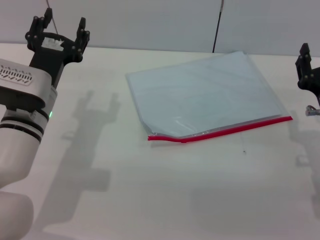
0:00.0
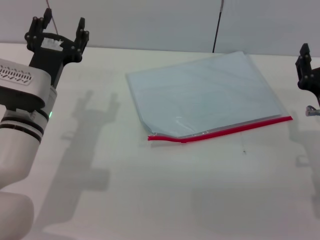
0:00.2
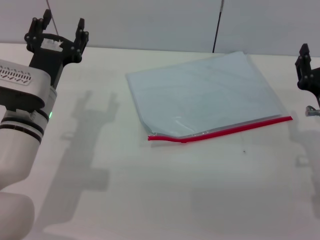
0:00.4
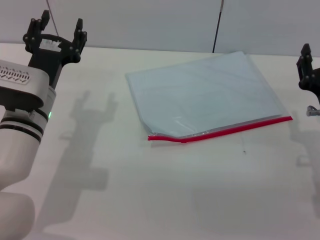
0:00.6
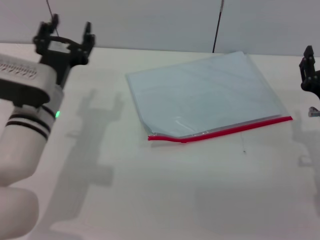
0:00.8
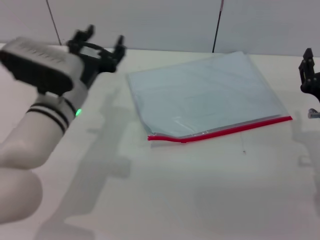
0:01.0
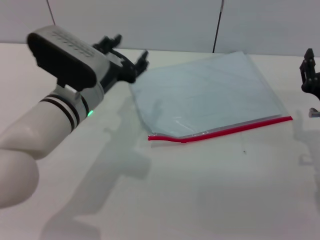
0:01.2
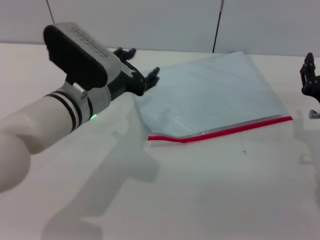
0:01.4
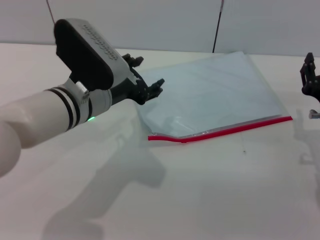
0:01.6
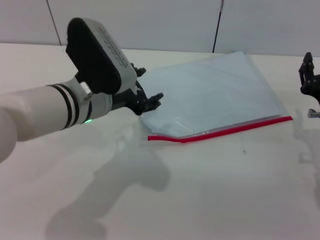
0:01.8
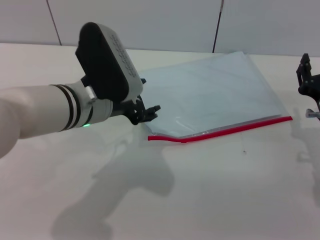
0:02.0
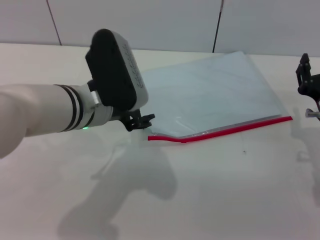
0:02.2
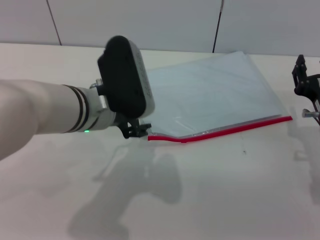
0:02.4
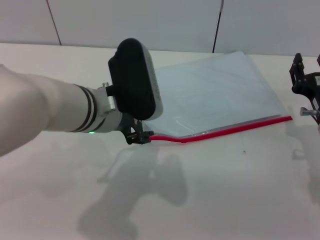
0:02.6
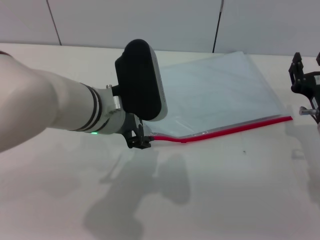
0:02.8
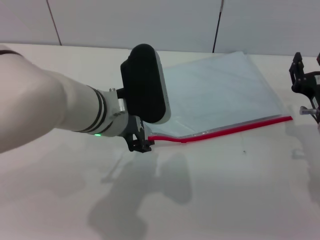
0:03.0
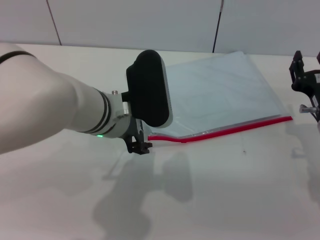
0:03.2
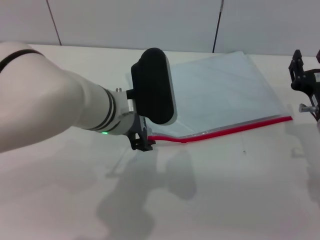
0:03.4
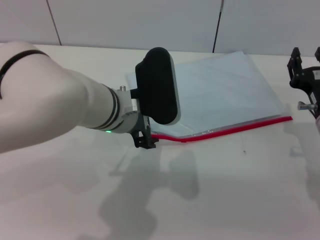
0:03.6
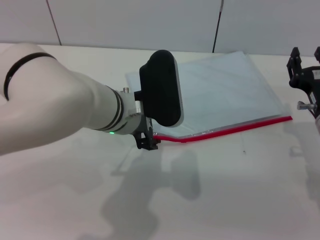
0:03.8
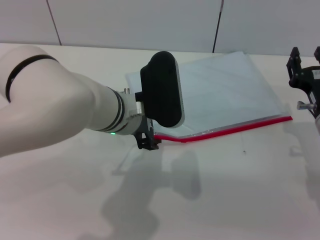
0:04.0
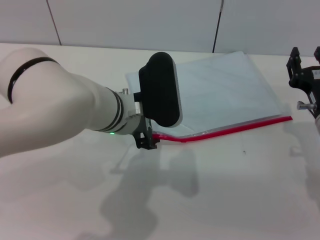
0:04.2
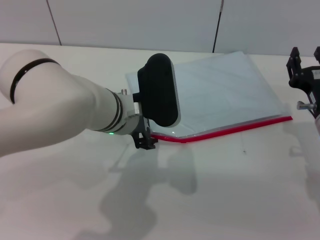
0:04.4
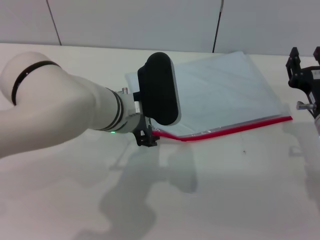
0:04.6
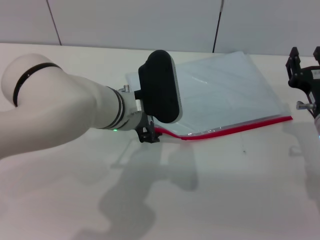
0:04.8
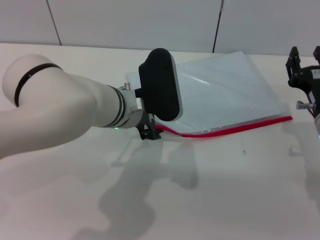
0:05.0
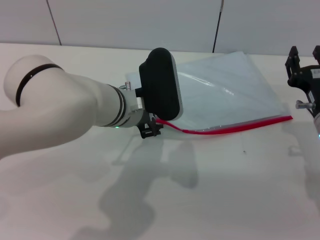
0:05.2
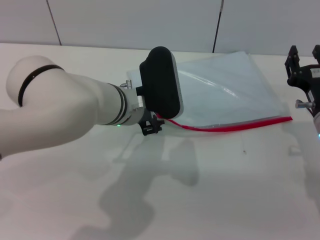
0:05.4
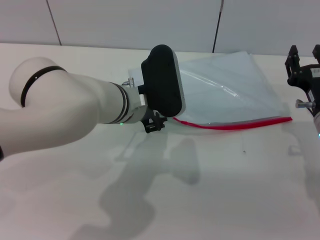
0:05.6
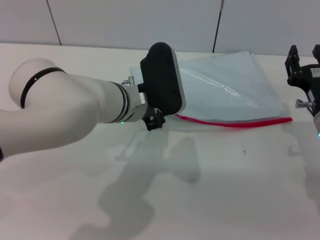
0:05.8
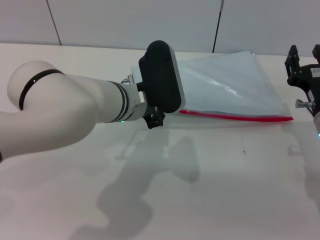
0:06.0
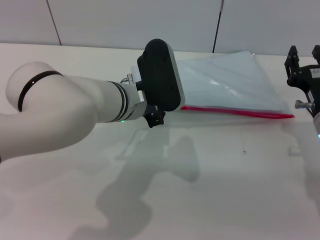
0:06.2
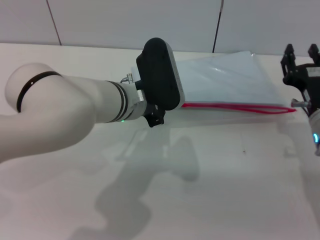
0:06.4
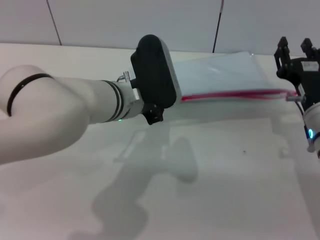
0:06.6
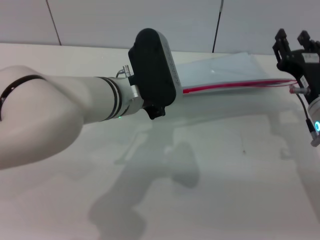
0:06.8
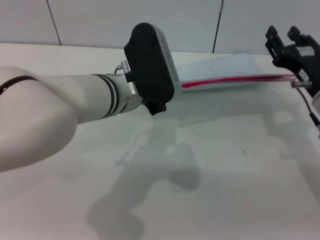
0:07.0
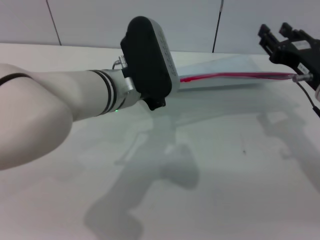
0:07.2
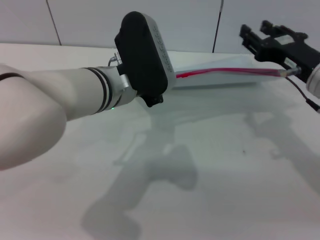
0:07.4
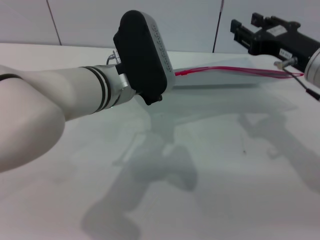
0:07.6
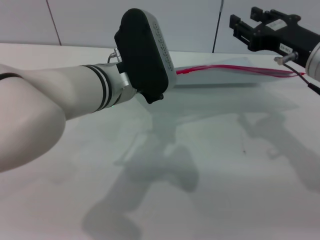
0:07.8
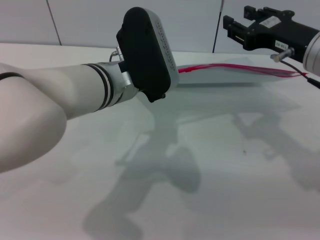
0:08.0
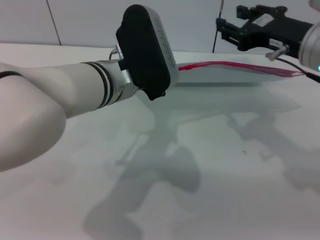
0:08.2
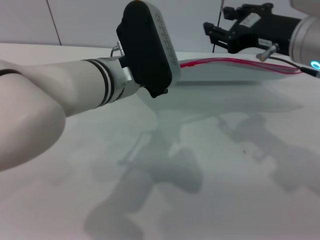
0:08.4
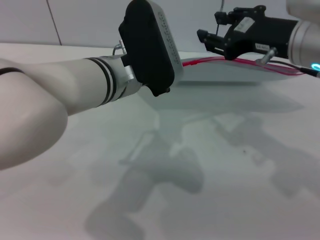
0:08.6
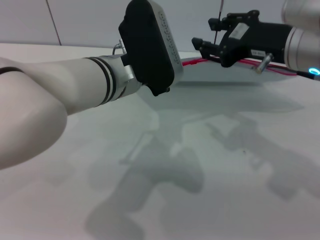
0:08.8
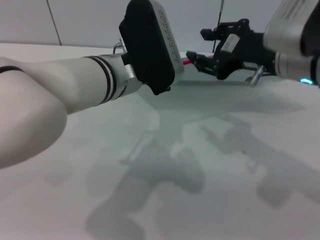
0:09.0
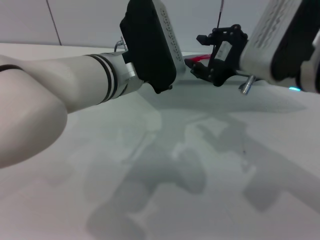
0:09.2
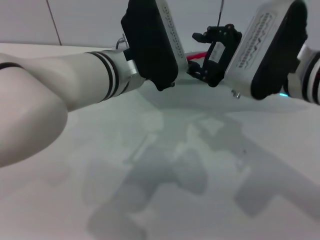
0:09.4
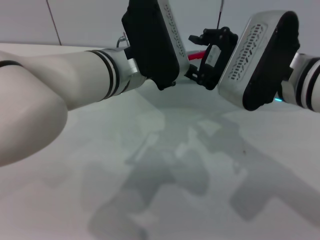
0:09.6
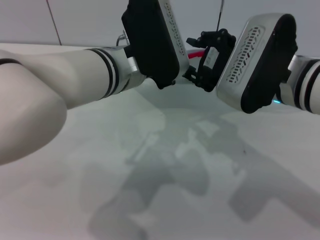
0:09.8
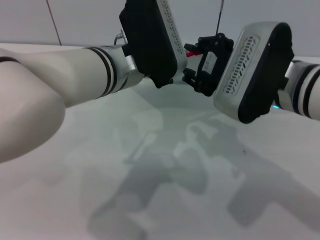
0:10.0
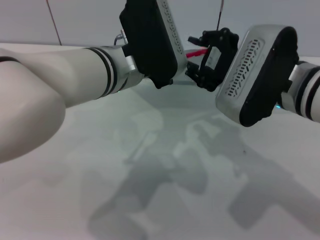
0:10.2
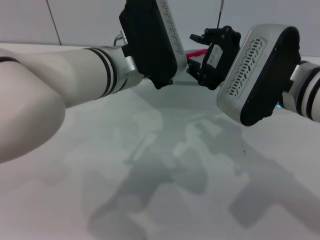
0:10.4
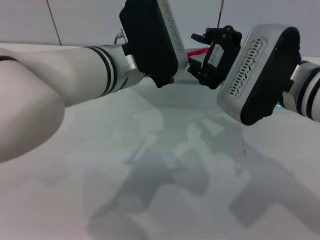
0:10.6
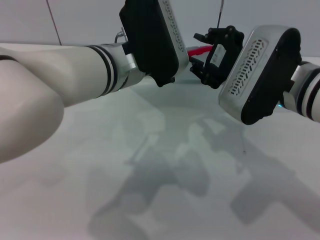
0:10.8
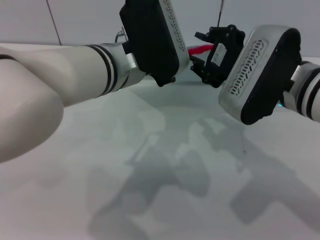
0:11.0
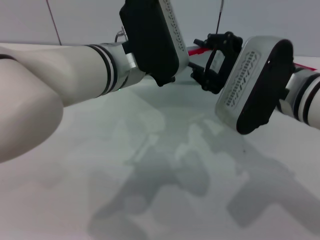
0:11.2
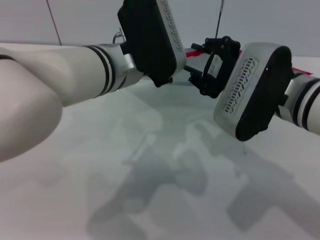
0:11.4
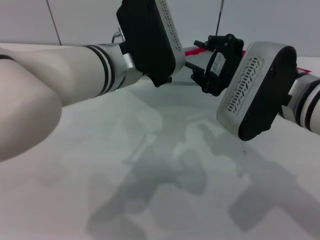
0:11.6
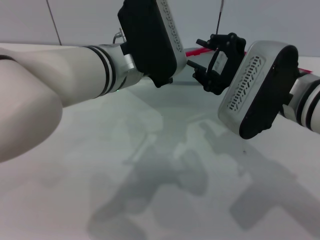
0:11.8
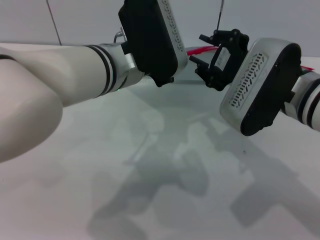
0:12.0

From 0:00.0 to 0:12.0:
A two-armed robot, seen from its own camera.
Step, from 0:00.0 to 0:08.8: Pick up the transparent plastic bag with the left gripper.
From 0:00.0 to 0:01.6: The left gripper heads to the right, covering some 5 cm.
From 0:03.0 to 0:04.4: There are only small adjustments of the grippers.
From 0:04.4 to 0:06.0: The left gripper closes up.
From 0:06.0 to 0:07.6: The left gripper shifts by about 5 cm, and closes, while the right gripper shifts about 10 cm upward.
From 0:07.6 to 0:09.0: The right gripper changes place by some 5 cm.
From 0:10.4 to 0:12.0: The grippers make only small movements.

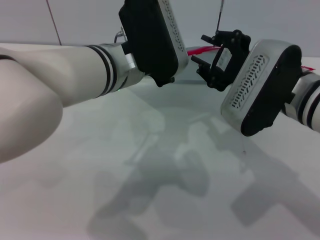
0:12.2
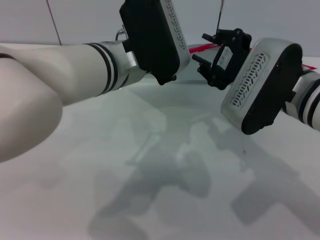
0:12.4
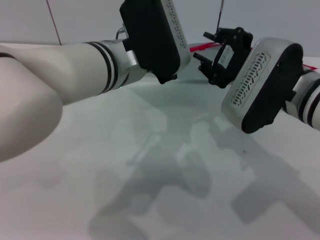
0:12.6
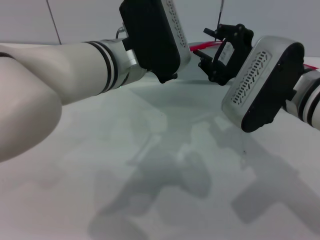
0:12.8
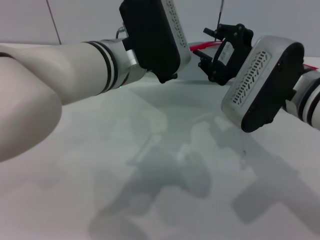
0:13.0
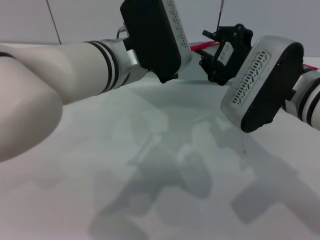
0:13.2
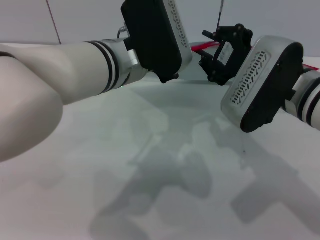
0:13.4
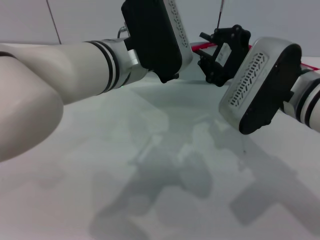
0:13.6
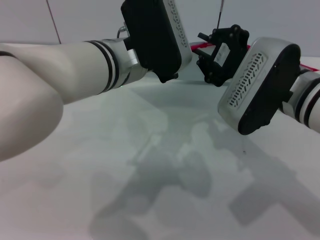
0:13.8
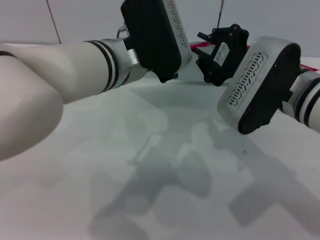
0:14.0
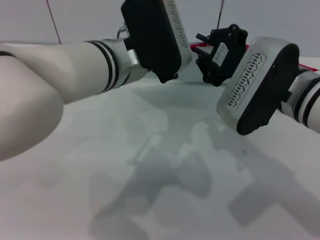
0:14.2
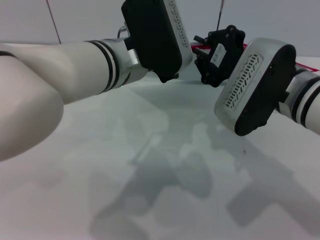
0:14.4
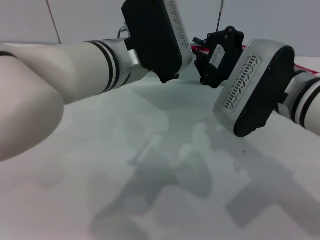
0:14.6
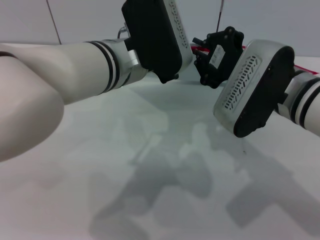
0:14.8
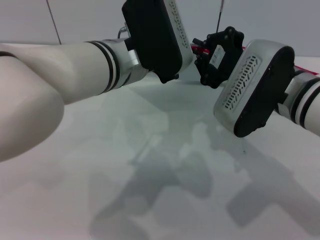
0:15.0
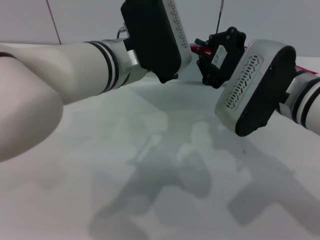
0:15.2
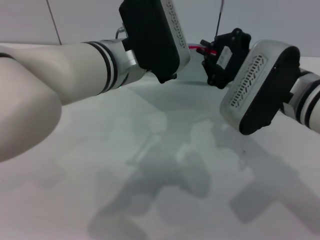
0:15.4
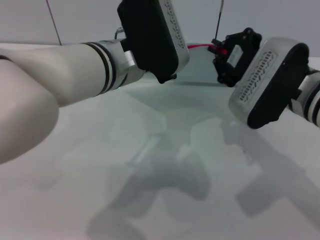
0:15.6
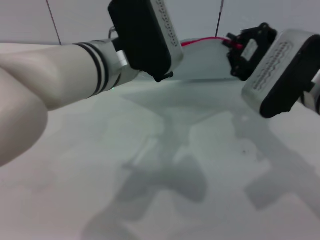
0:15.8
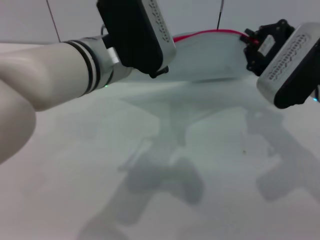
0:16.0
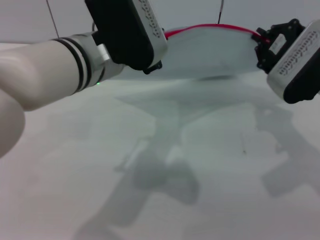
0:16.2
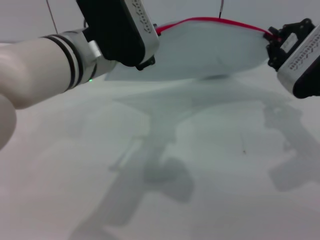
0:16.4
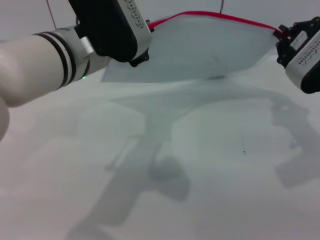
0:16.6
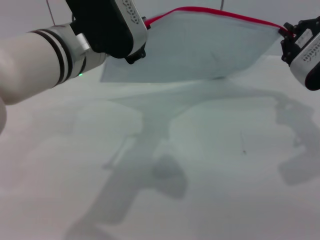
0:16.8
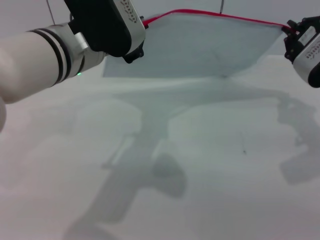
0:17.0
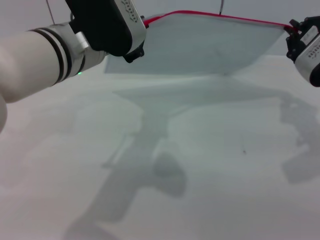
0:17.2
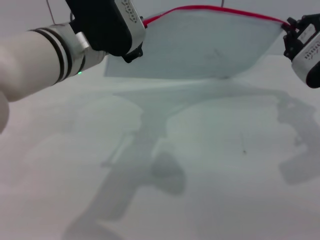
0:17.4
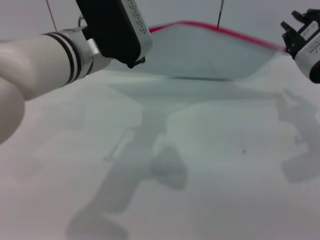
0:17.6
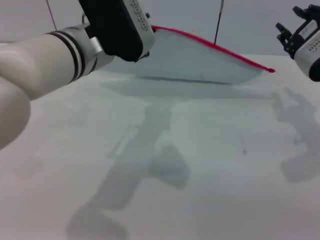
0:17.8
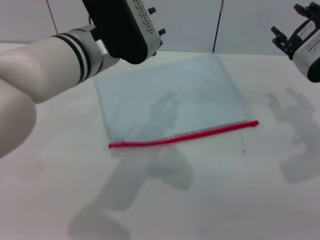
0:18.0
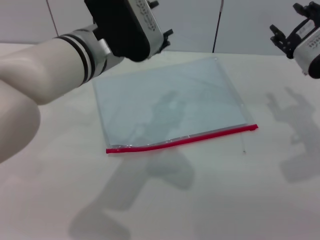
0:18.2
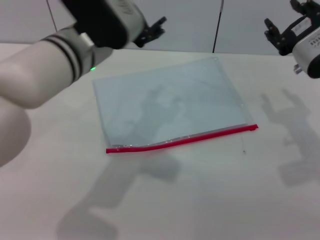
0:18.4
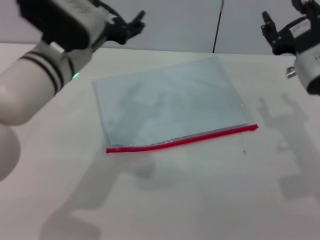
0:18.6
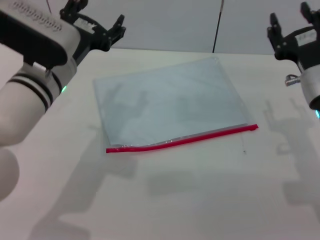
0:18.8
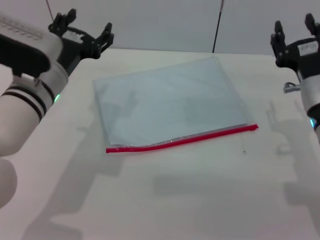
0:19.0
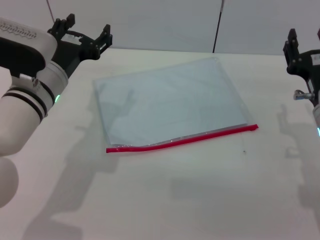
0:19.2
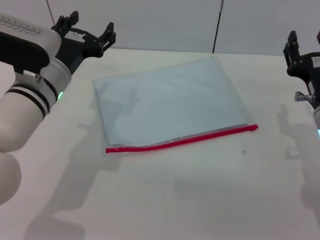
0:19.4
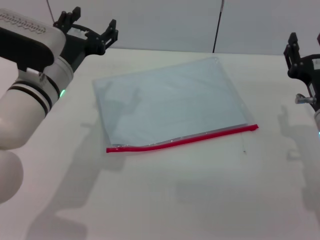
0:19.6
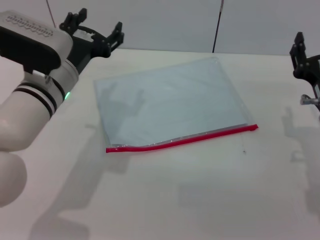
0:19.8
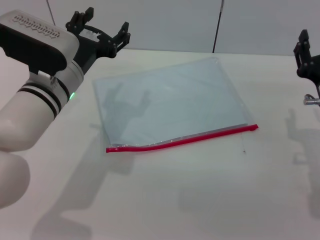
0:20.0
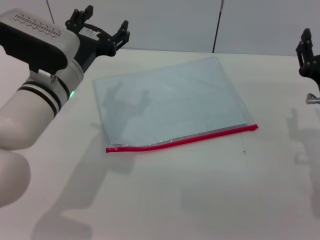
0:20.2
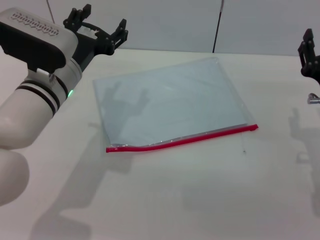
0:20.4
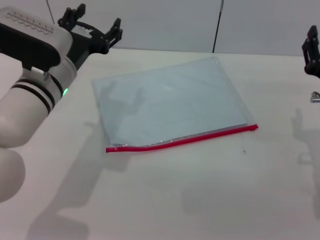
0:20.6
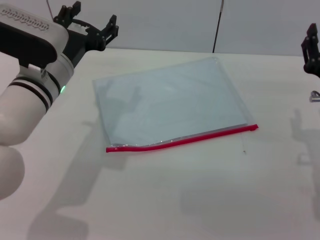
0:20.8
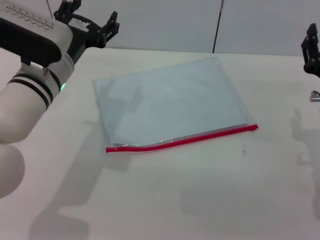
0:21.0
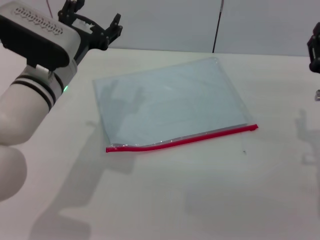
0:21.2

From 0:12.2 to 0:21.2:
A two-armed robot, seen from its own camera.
Step, from 0:12.2 to 0:17.4: Pulling up the zipper on the transparent plastic bag with the right gripper to close it.
Step, from 0:17.6 to 0:18.0: Place the transparent plastic bag.
From 0:12.2 to 0:15.2: Neither gripper changes place.
From 0:15.2 to 0:16.6: The right gripper goes roughly 10 cm to the right.
From 0:16.6 to 0:18.2: The right gripper opens its fingers. The left gripper opens up.
From 0:18.2 to 0:19.8: The right gripper moves downward and backward, approximately 10 cm; the left gripper travels downward and to the left by approximately 10 cm, and opens up.
From 0:19.8 to 0:21.2: The grippers stay close to where they were, moving slightly.

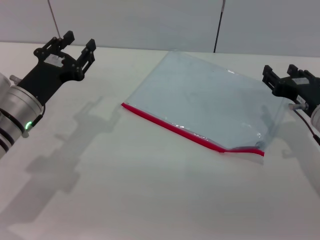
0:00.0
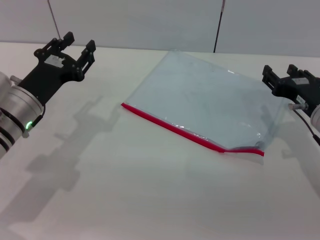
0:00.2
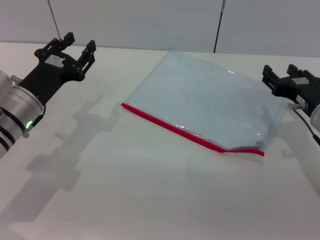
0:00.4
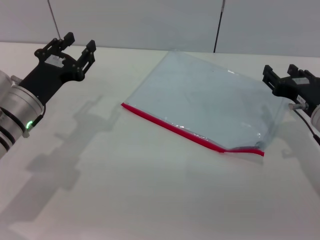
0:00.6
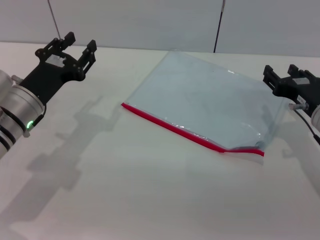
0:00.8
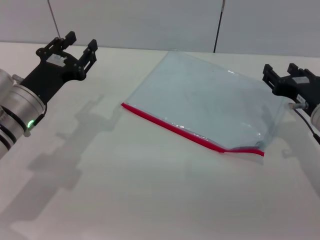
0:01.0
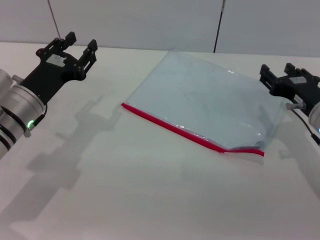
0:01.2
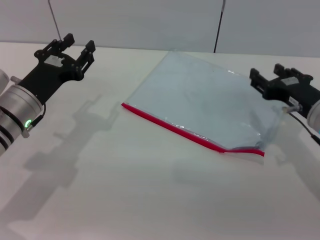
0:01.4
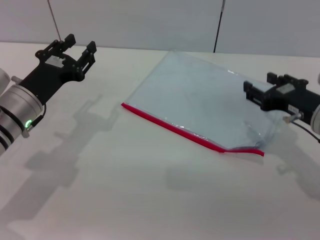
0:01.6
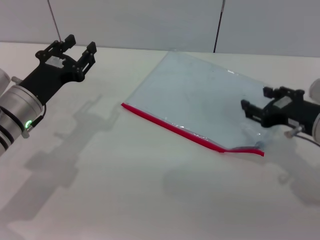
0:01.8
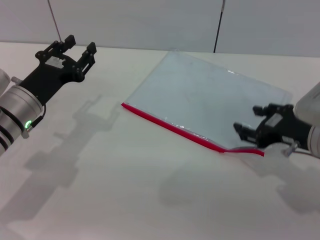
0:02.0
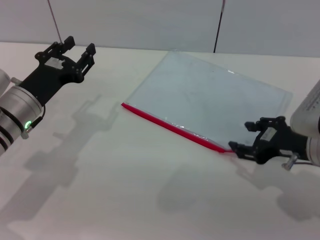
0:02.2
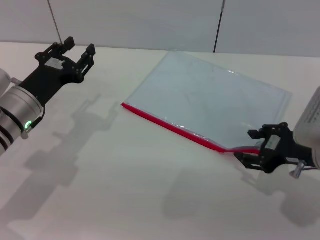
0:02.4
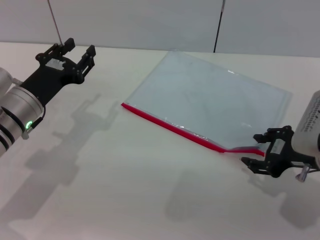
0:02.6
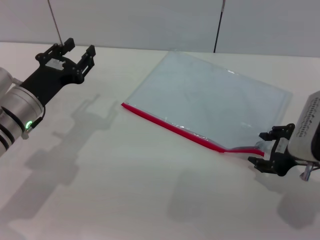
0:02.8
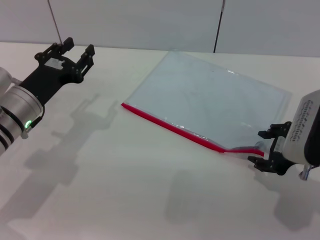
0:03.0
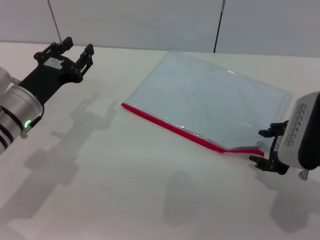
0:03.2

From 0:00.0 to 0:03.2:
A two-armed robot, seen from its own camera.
From 0:00.0 to 0:01.6: The grippers make only small movements.
